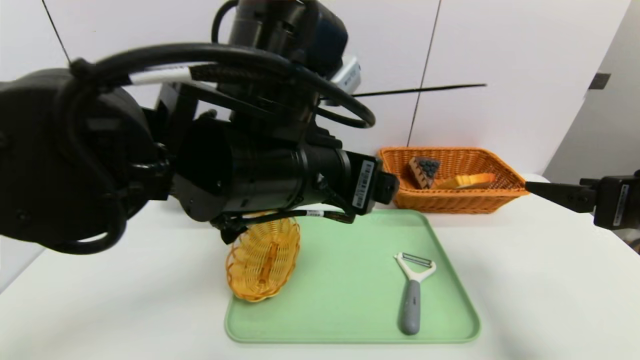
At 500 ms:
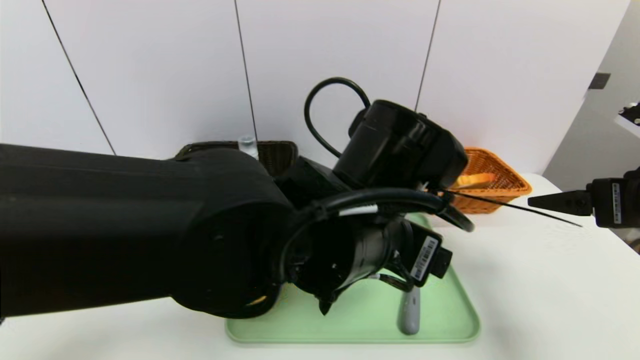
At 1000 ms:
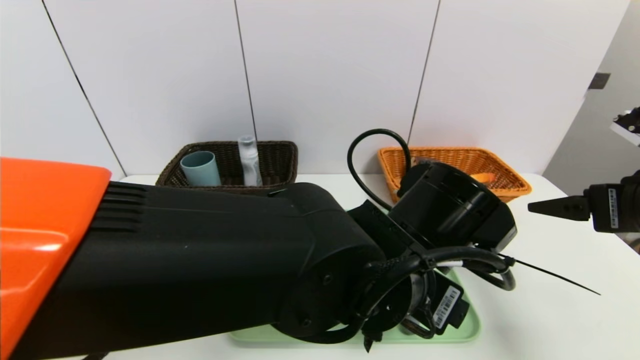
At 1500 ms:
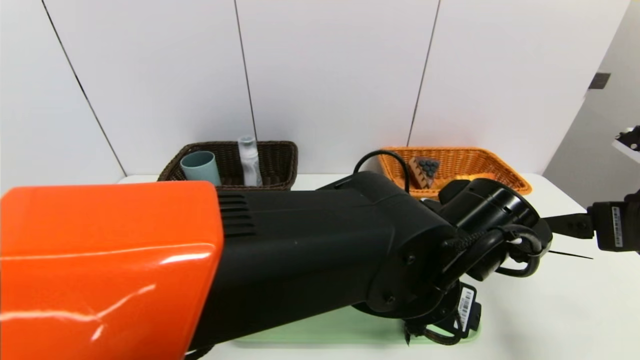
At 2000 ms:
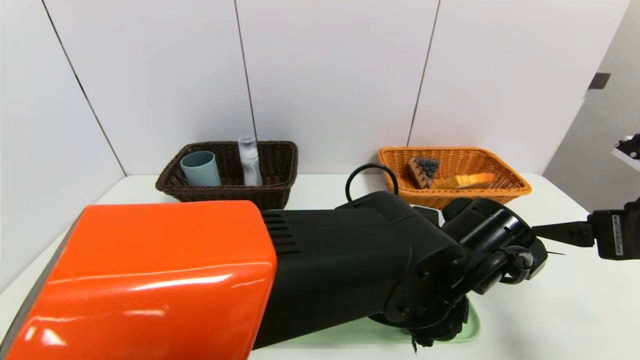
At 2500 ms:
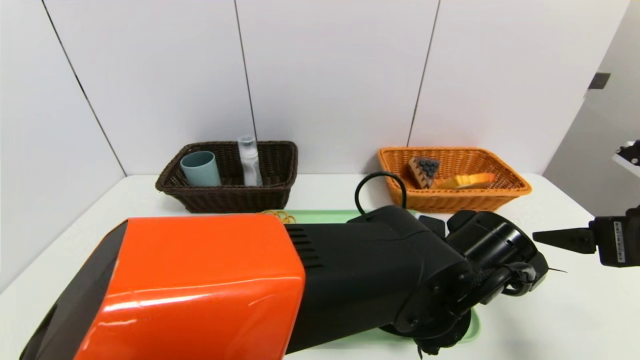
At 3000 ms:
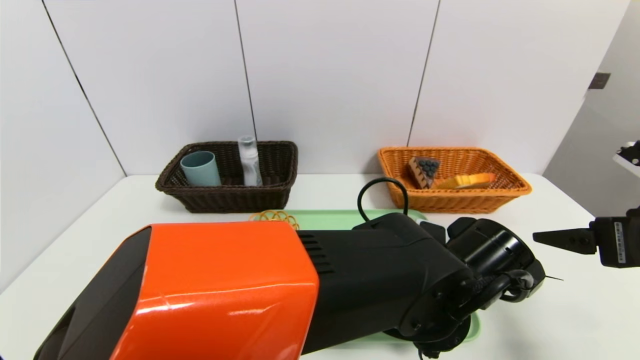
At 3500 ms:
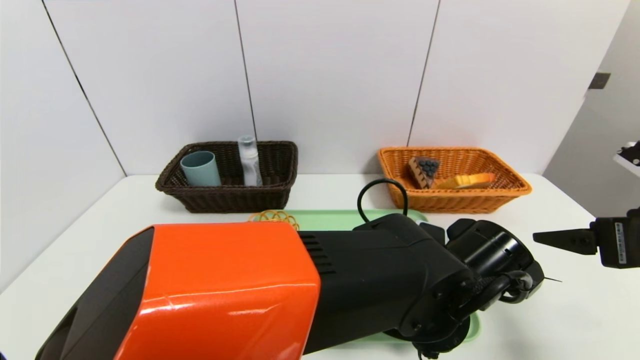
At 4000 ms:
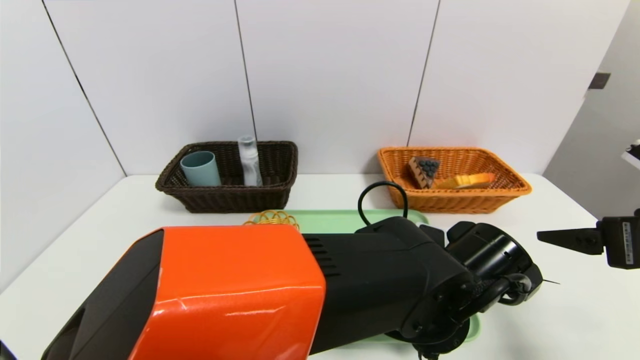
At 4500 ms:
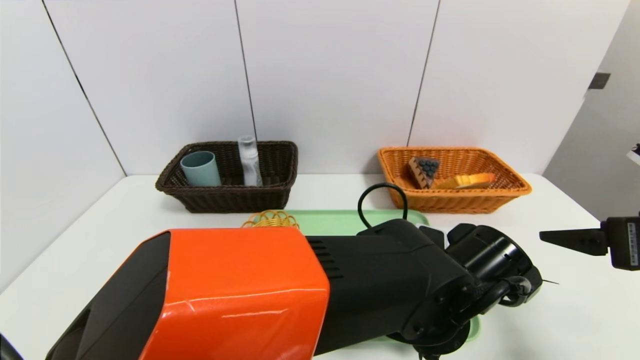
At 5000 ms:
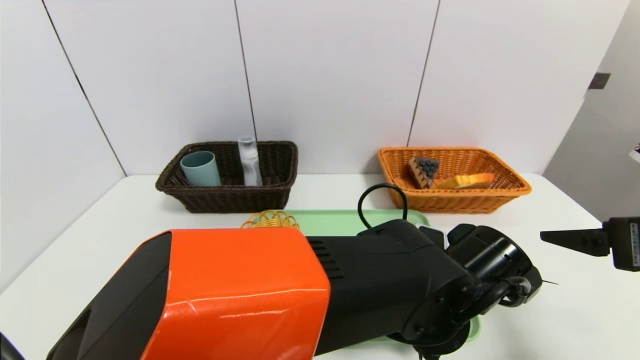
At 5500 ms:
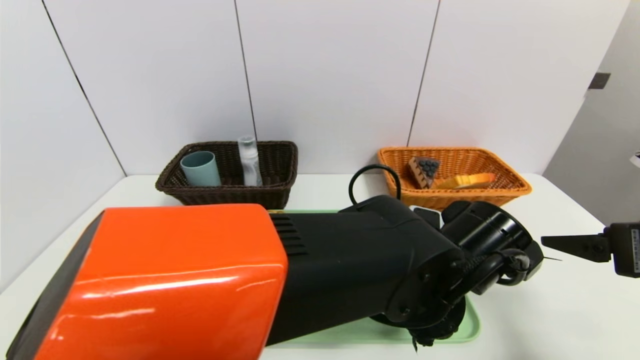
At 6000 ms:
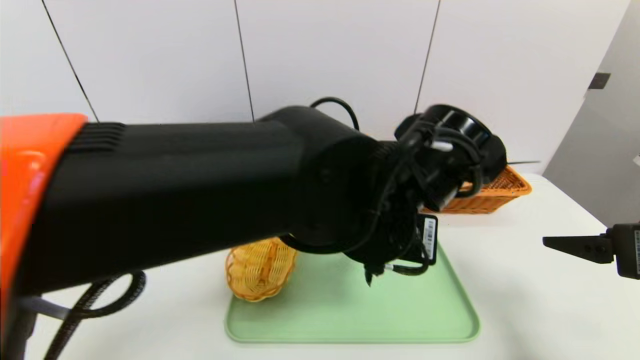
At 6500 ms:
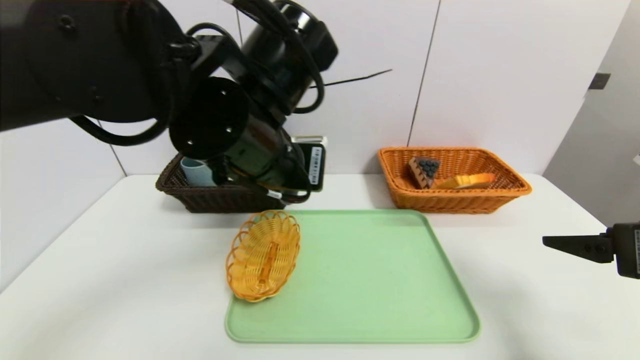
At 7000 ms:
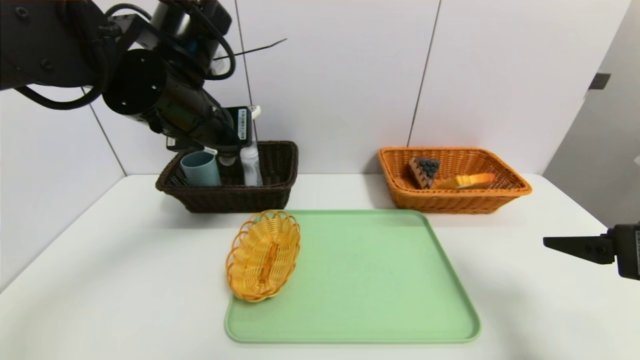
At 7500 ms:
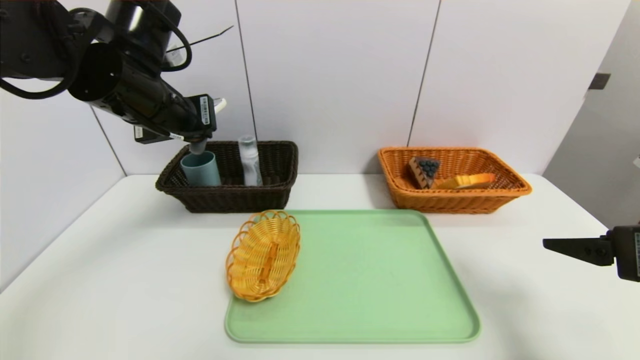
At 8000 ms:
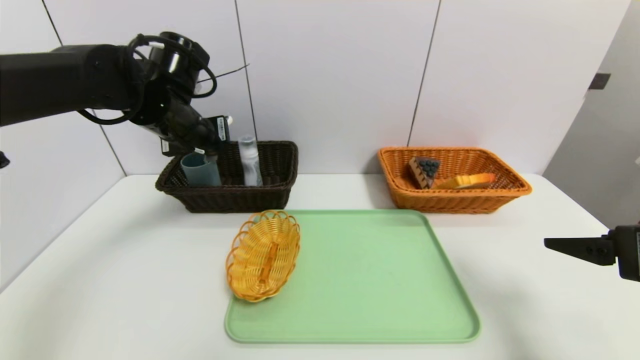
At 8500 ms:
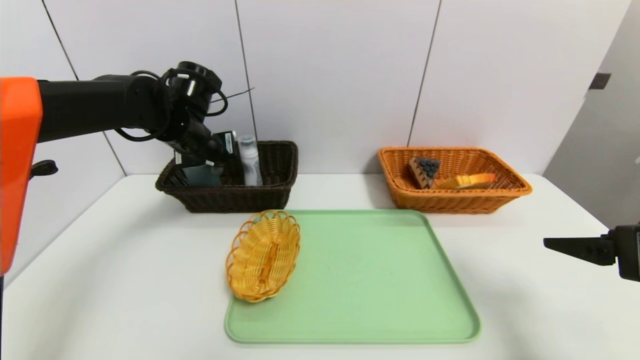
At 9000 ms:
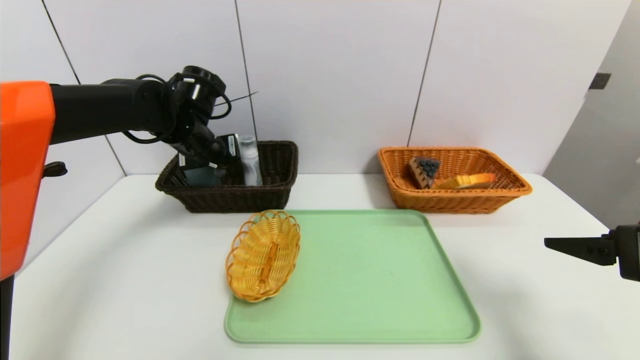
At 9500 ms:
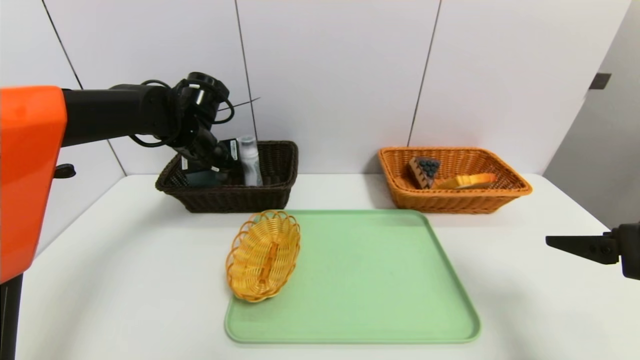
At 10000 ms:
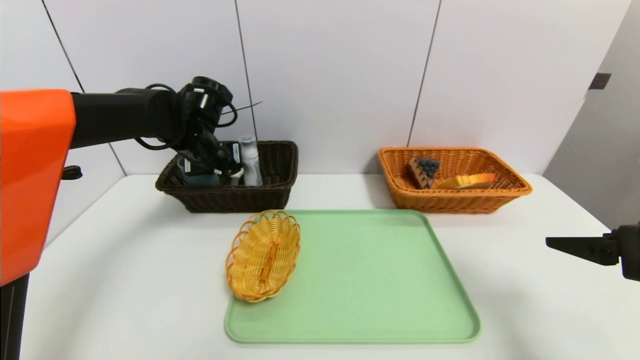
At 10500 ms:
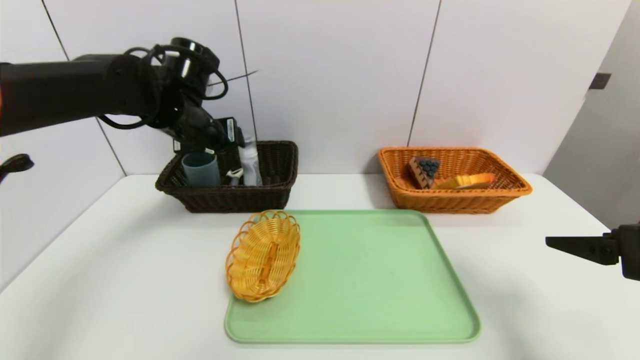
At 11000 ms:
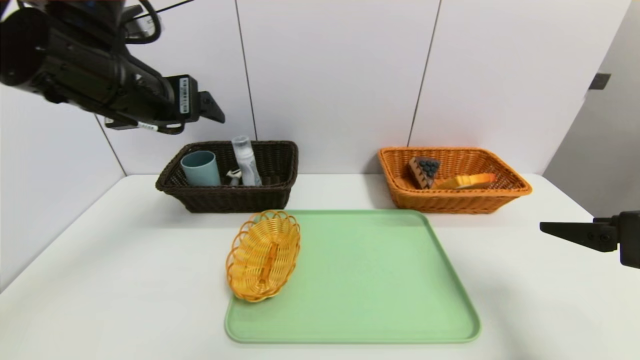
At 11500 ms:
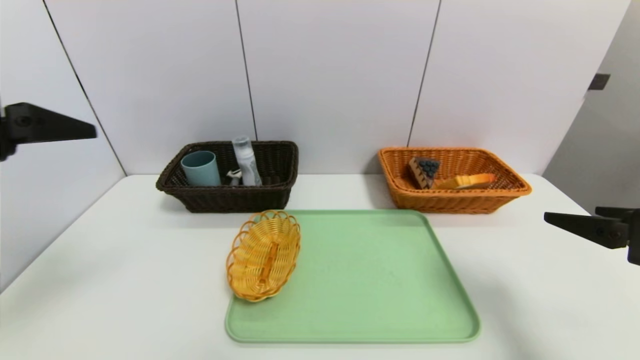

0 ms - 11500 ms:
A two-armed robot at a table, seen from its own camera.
Task of the whole recording: place the food in the right basket with the right gripper, and place the non food items in the left basket with the left gripper.
Step, 0 ms - 10000 ms: Grasp the peeler and put it in the left basket.
0 ms - 2000 ms: The left gripper travels to the right and downward by some 20 cm.
4000 ms - 6000 ms: The left gripper shifts about 10 cm upward and to the left, and closes.
6000 ms - 7500 ms: The left gripper goes approximately 25 cm to the left and forward.
7500 ms - 9500 ms: The left gripper moves forward and downward, some 15 cm.
9500 ms - 11500 ms: The left gripper goes approximately 30 cm backward and upward, and opens.

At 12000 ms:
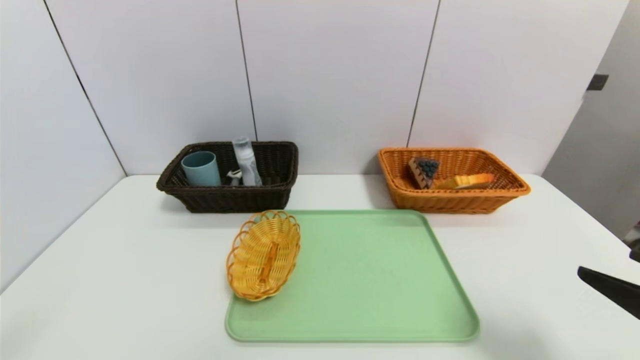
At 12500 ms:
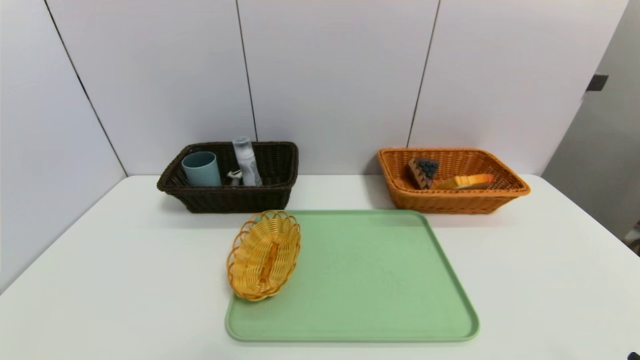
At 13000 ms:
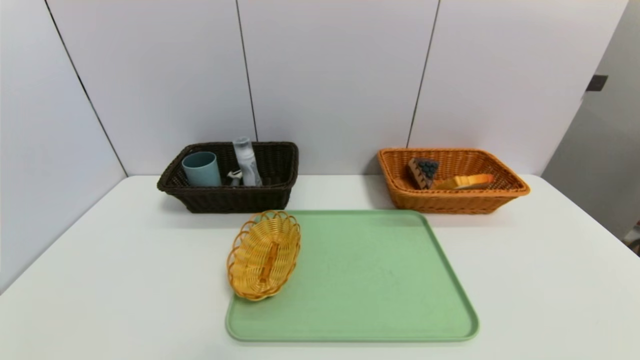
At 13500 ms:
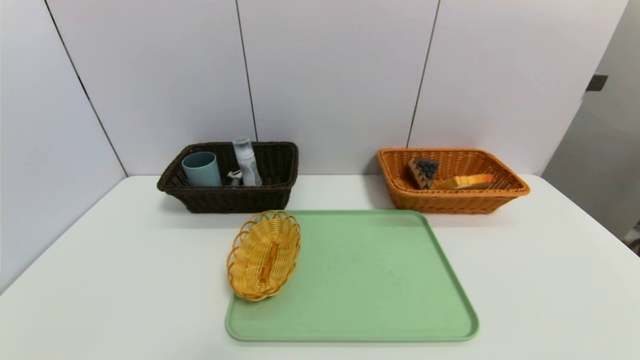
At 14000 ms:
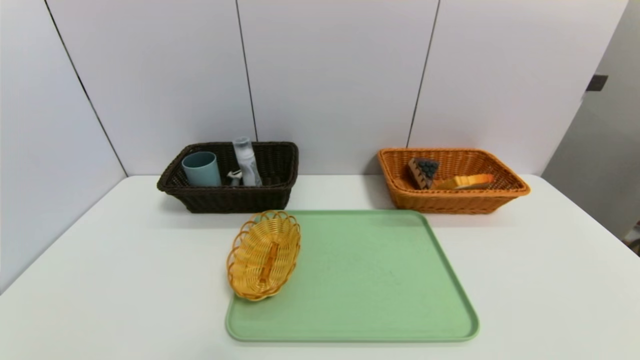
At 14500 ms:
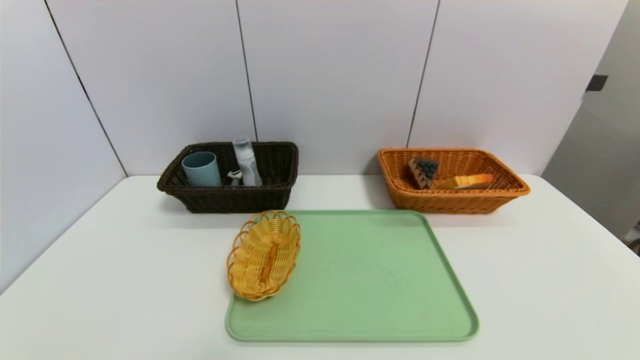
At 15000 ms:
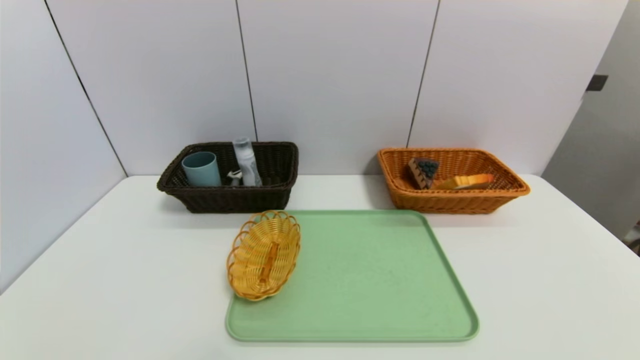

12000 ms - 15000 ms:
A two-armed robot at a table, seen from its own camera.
Task of the whole recording: place the food in the right basket with the right gripper, and place the non food items in the left basket with the left gripper.
12000 ms - 13500 ms: The right gripper travels backward and downward by about 15 cm.
